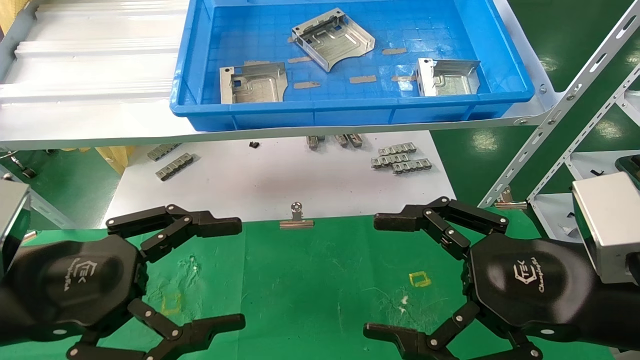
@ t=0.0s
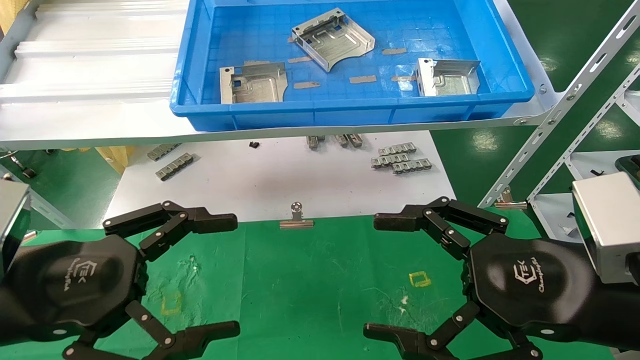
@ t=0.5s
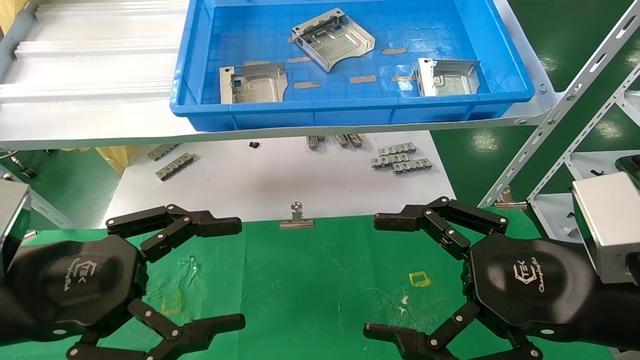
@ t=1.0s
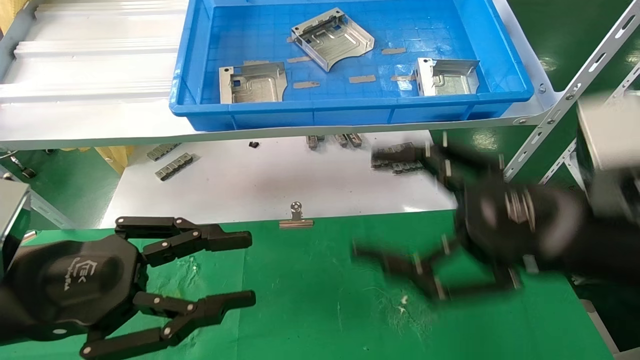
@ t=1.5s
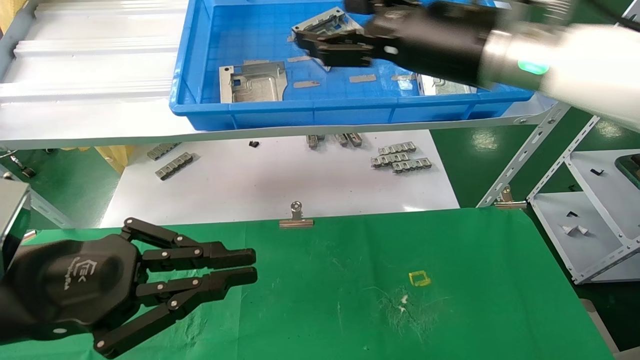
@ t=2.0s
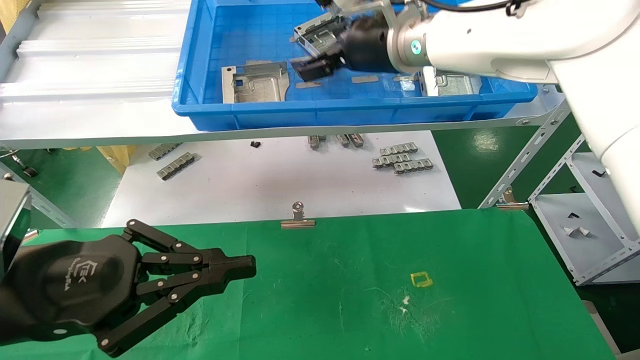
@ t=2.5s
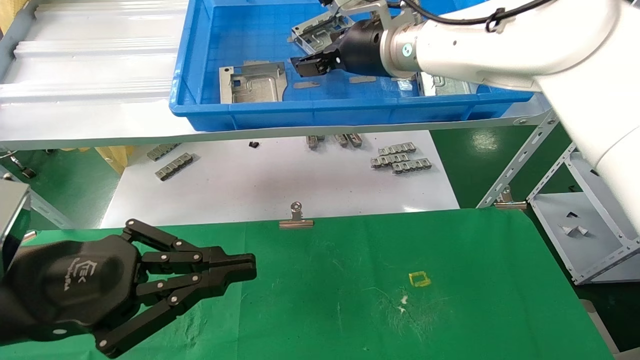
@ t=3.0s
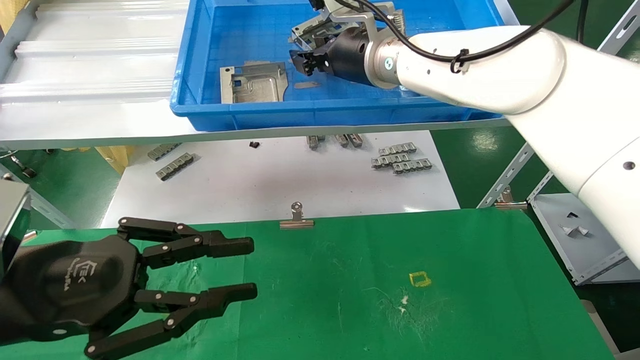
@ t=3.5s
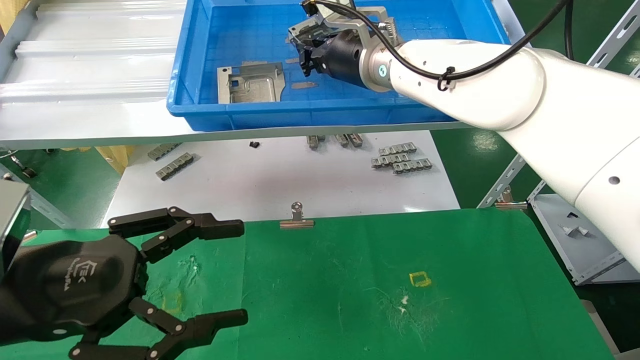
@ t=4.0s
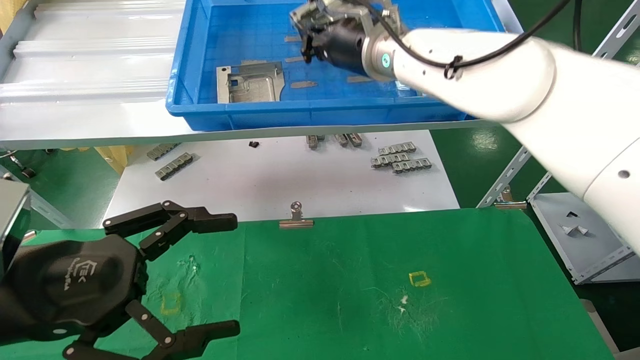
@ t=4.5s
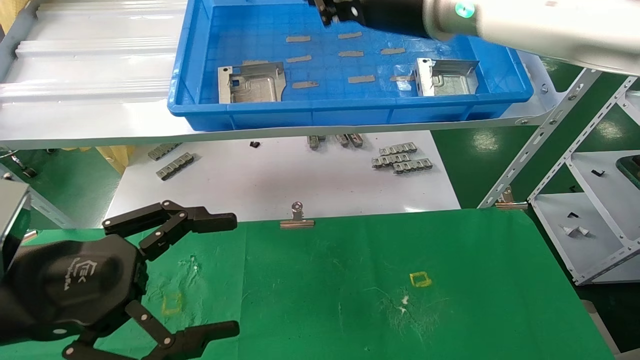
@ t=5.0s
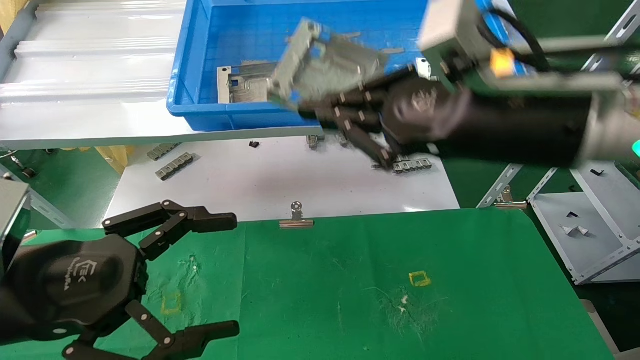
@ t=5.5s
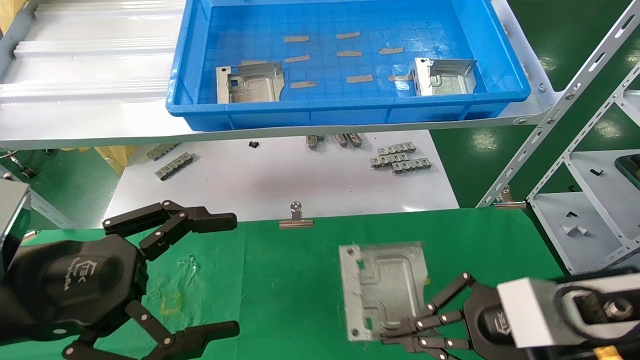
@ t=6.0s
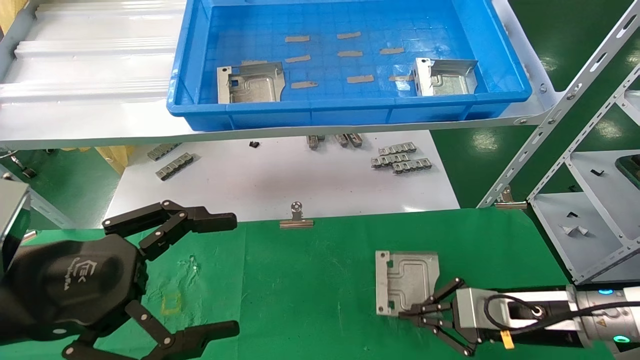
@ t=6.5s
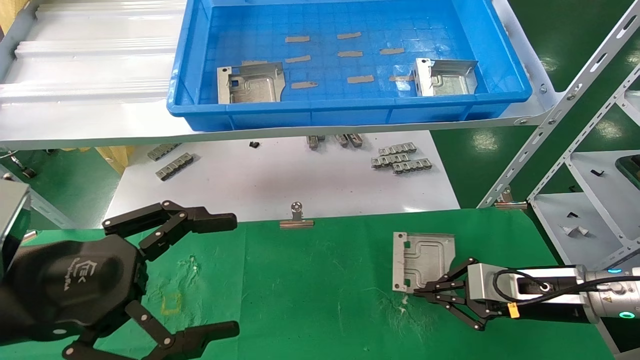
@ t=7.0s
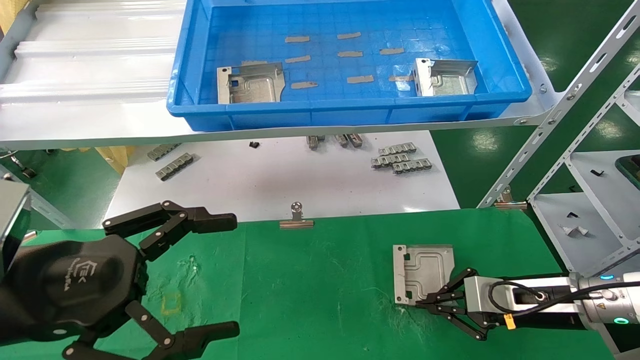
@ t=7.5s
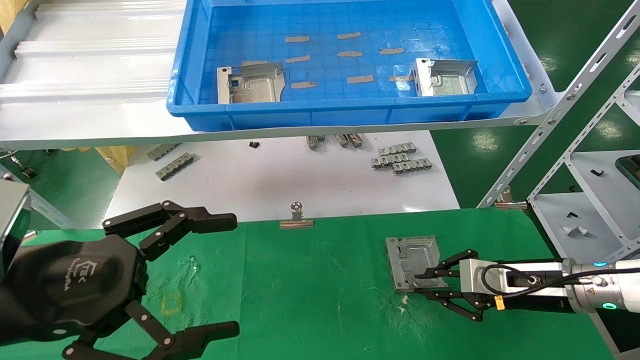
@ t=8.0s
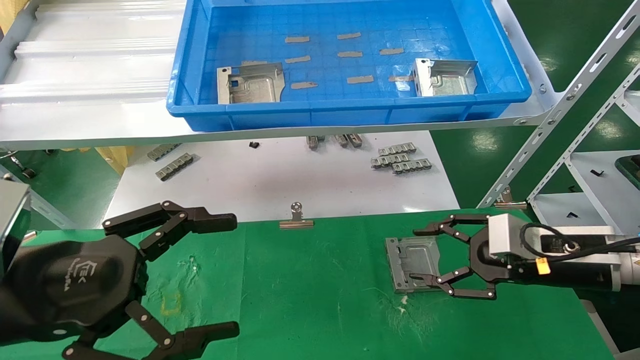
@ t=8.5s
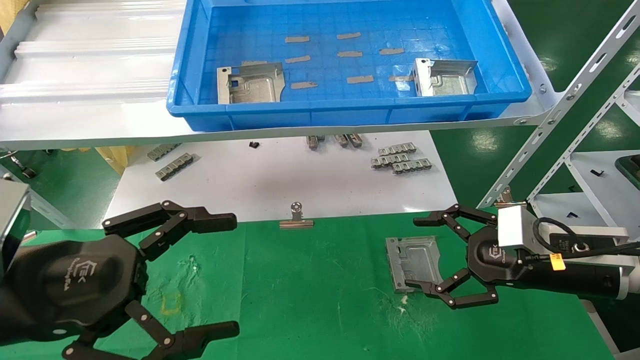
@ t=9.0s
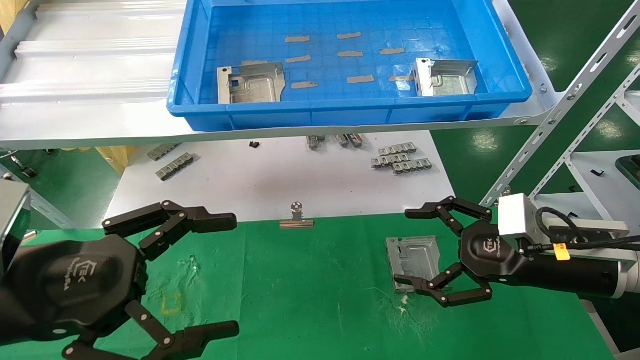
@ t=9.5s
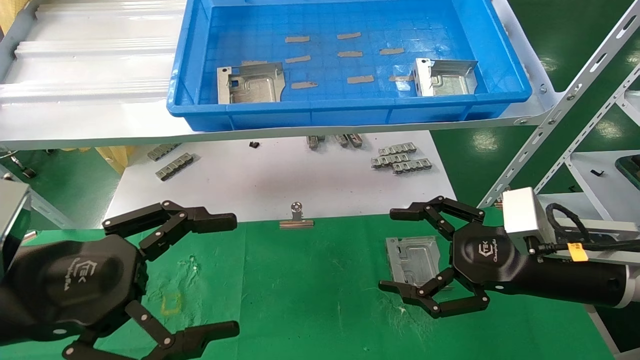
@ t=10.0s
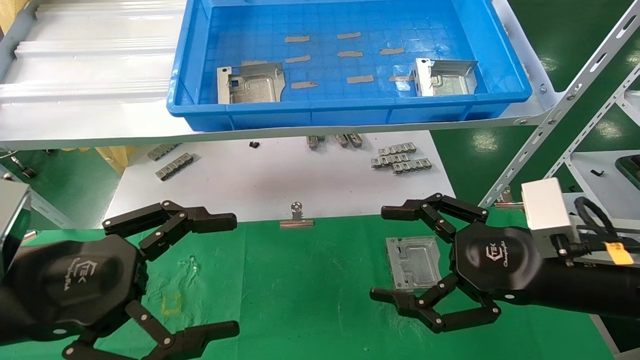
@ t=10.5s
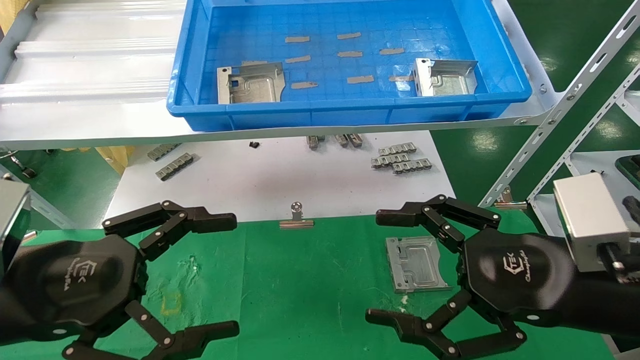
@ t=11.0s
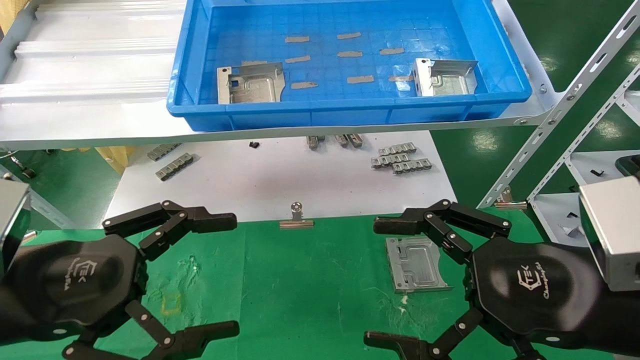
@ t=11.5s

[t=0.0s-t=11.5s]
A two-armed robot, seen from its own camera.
Task of the whole recording: use the mechanical arm to pick up the parts and place them on the table.
Step, t=2.0s to t=5.0s: Pick up the hard drive bracket from the feeding area.
Step, t=5.5s to t=8.0s: Place the hard drive bracket into the box.
t=0.0s to t=2.0s: The left gripper closes up. The right gripper travels forward, upward and to the left by approximately 25 cm.
t=2.0s to t=4.0s: The right gripper travels forward and to the left by roughly 15 cm, and closes up, while the left gripper opens up.
t=4.0s to t=6.0s: The right gripper shifts roughly 35 cm downward, to the right and backward.
t=6.0s to t=7.5s: The right gripper goes roughly 15 cm forward, downward and to the right.
t=7.5s to t=9.5s: The right gripper moves upward, approximately 10 cm, and opens.
t=9.5s to t=11.5s: The right gripper is displaced backward, to the left and upward by roughly 15 cm.
